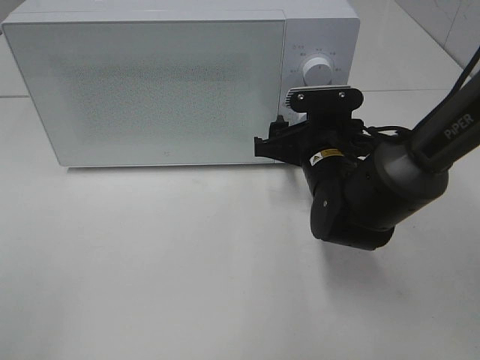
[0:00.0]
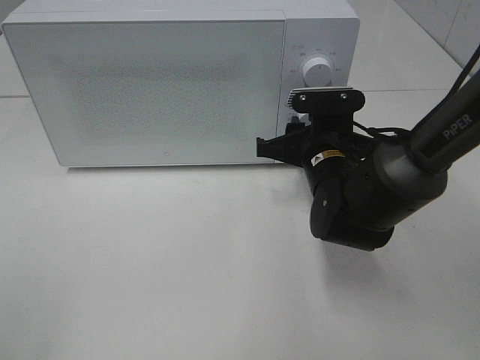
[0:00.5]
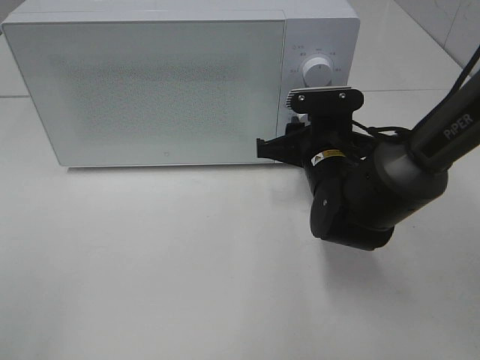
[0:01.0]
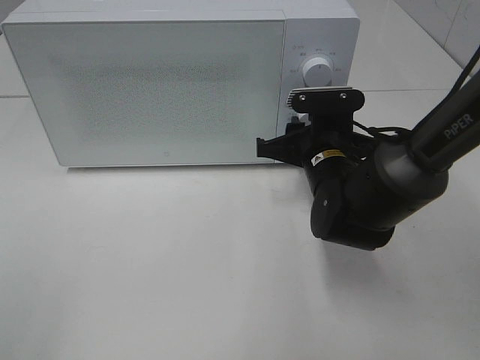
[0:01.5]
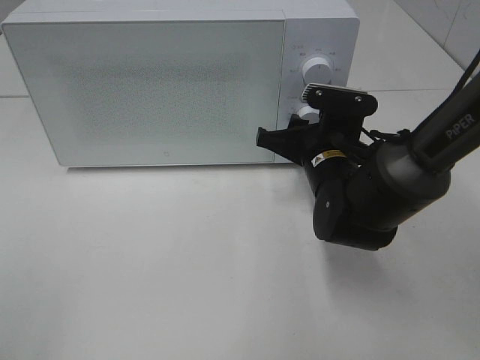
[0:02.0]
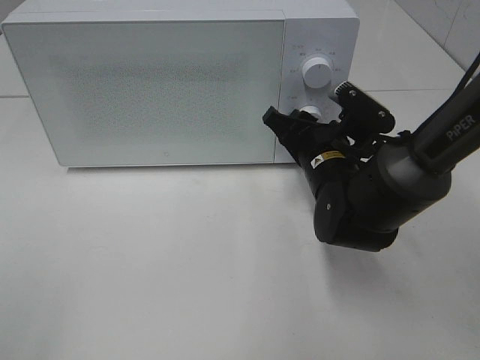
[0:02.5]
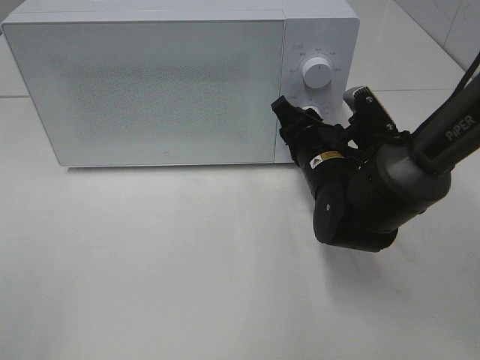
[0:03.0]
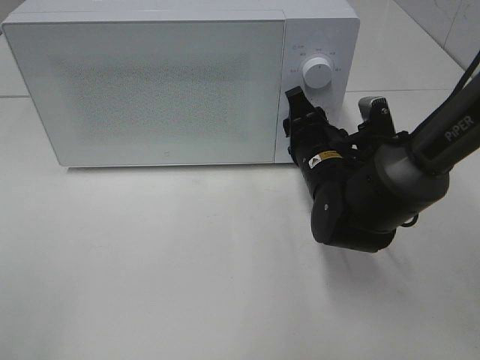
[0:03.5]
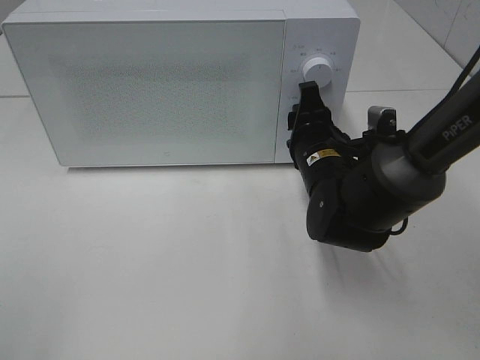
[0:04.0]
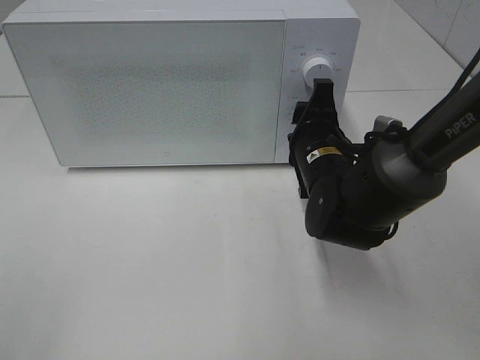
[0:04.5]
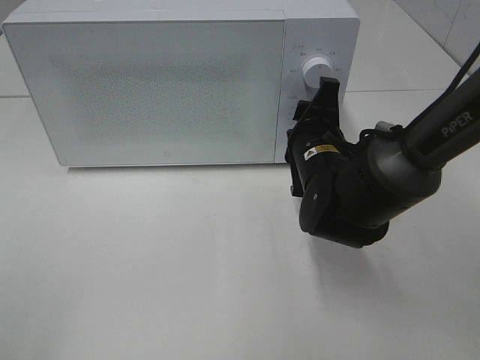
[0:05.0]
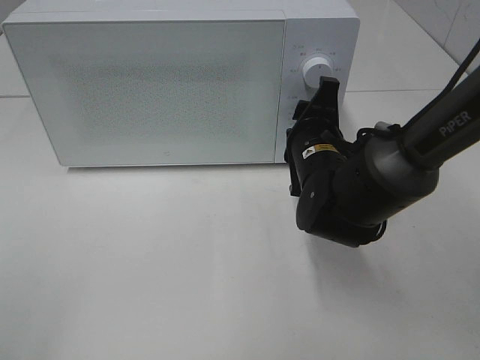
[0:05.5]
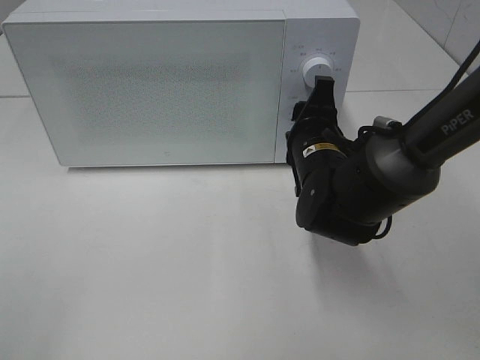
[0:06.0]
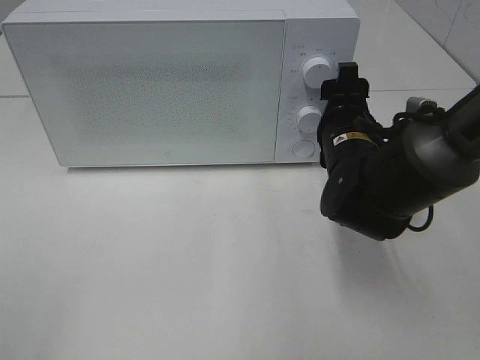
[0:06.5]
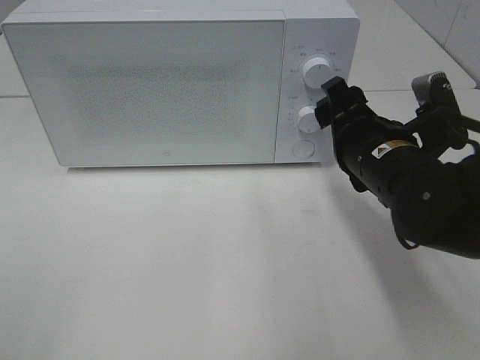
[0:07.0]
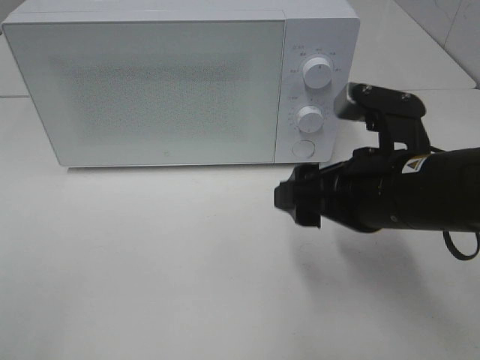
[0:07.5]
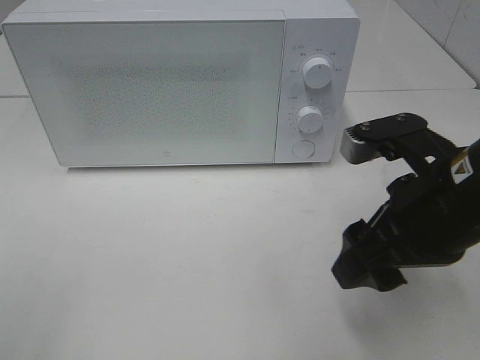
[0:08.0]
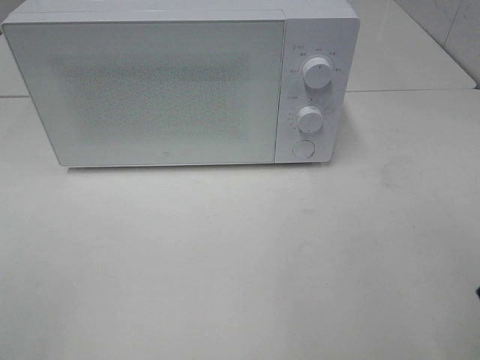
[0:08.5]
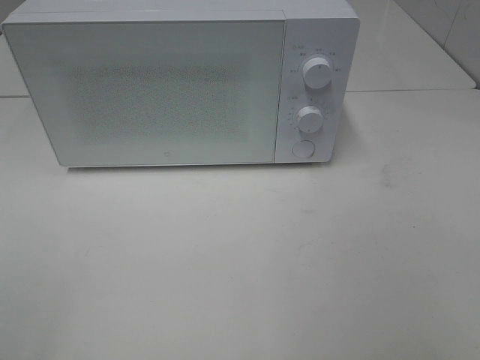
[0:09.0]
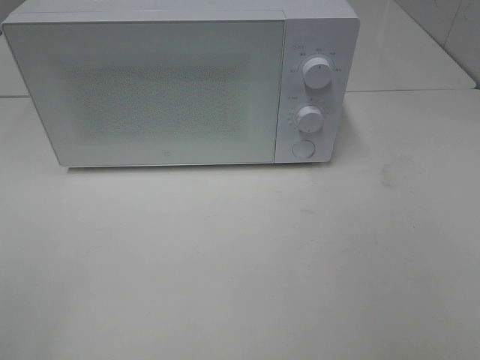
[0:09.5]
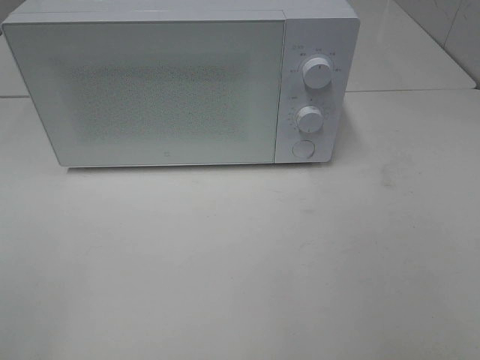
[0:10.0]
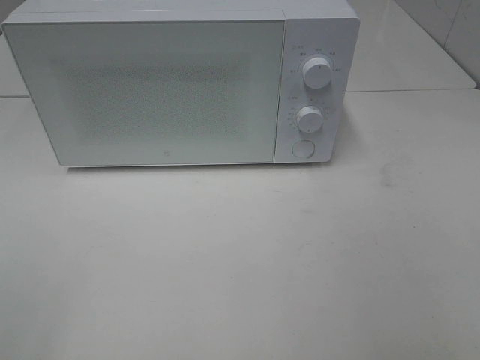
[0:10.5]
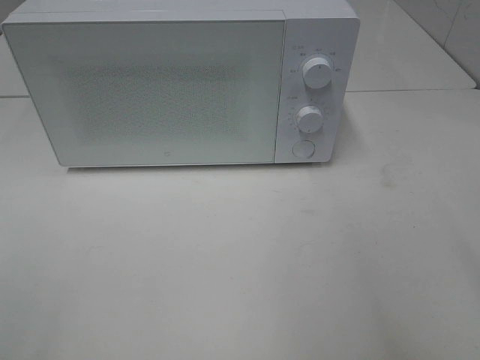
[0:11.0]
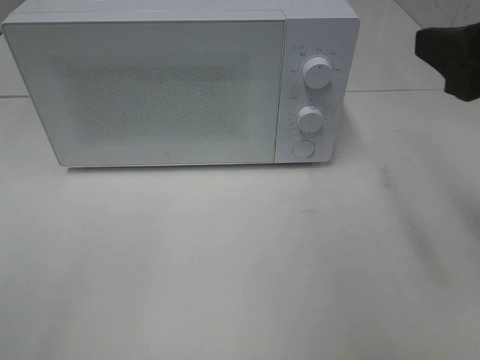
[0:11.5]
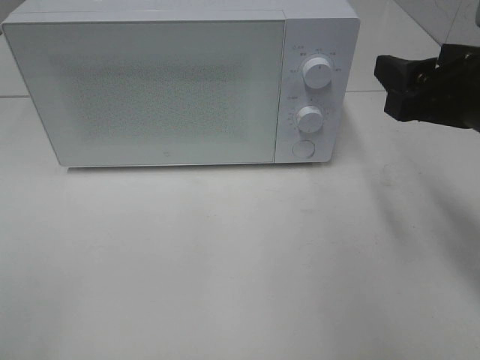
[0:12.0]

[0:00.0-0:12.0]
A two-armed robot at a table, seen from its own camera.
Task of the whole recording: Heat the burger.
Step, 0:00.0 to 0:06.0: Right hand: twist timer button.
0:00.0 to 0:02.0: The grippers make only small movements.
0:06.0 to 0:08.0: The right gripper heads backward and upward, covering about 15 cm.
0:08.0 to 0:10.0: The right gripper shifts about 25 cm backward, to the right and upward.
0:10.0 to 0:12.0: The right gripper travels forward by roughly 20 cm.

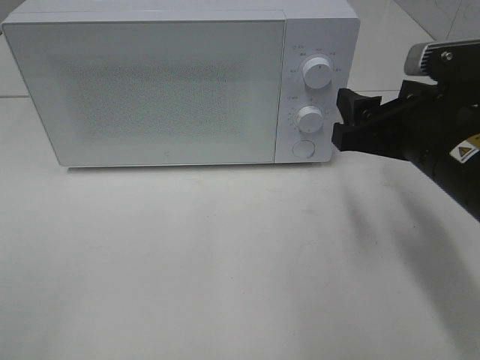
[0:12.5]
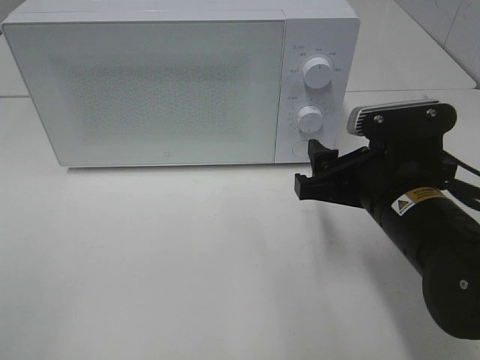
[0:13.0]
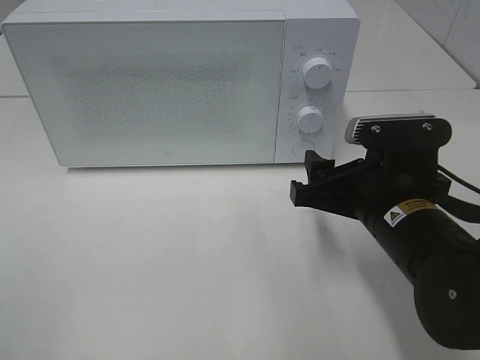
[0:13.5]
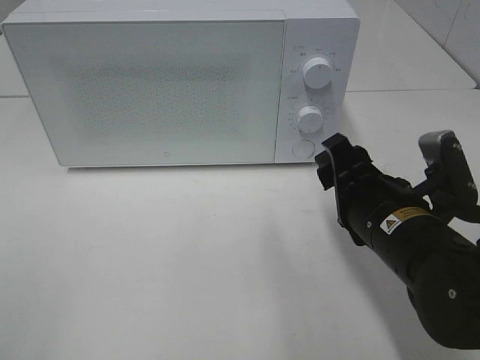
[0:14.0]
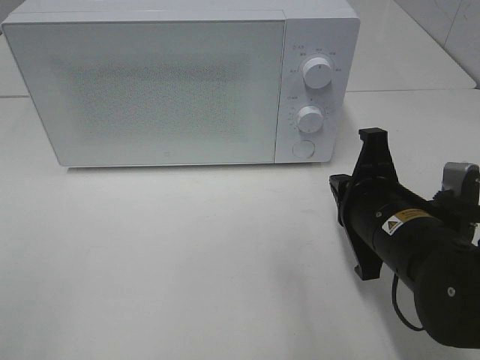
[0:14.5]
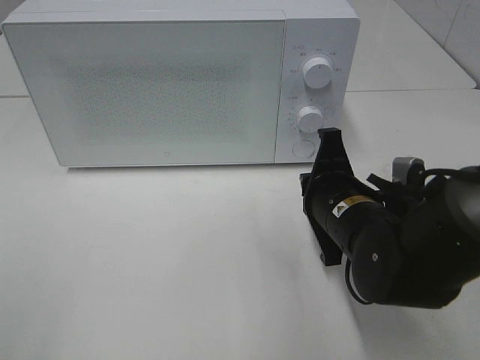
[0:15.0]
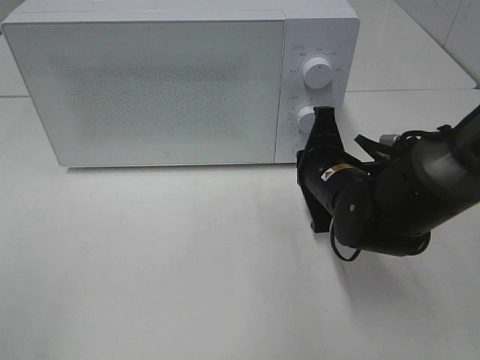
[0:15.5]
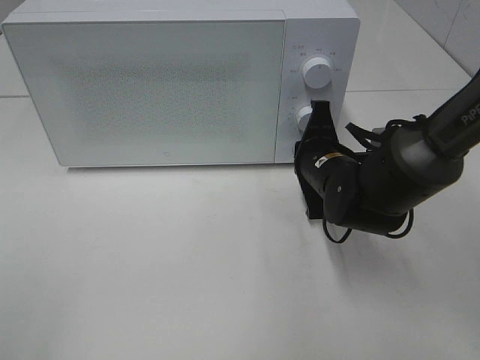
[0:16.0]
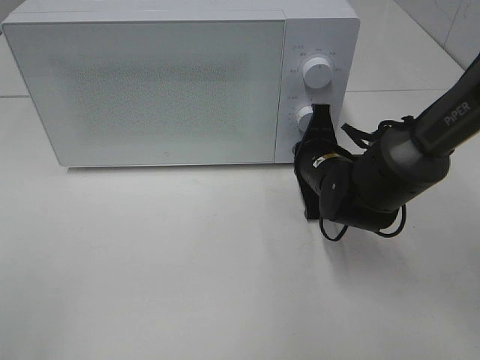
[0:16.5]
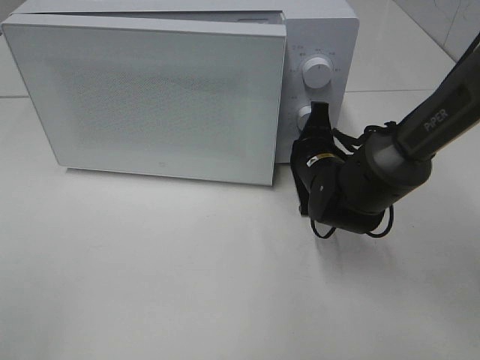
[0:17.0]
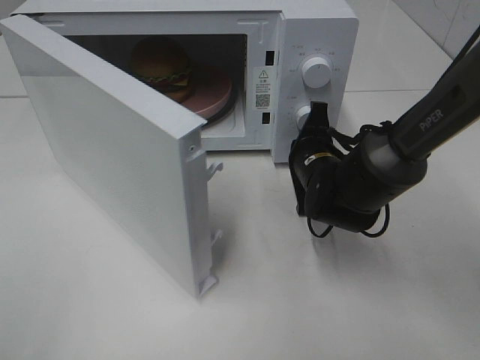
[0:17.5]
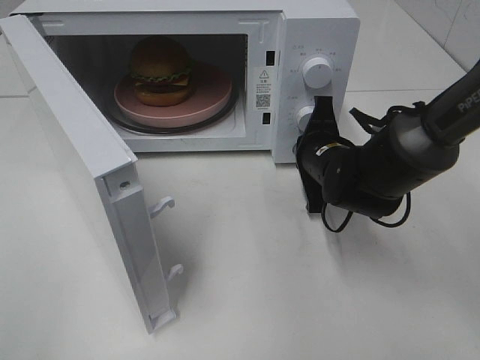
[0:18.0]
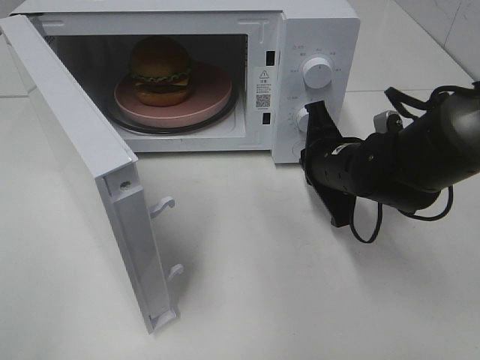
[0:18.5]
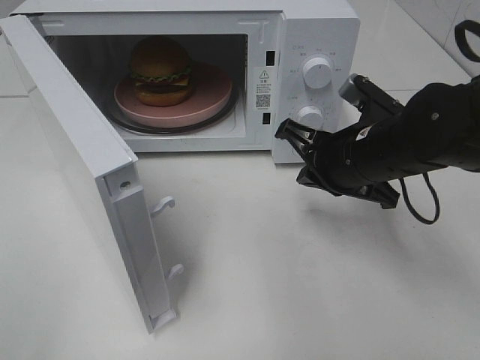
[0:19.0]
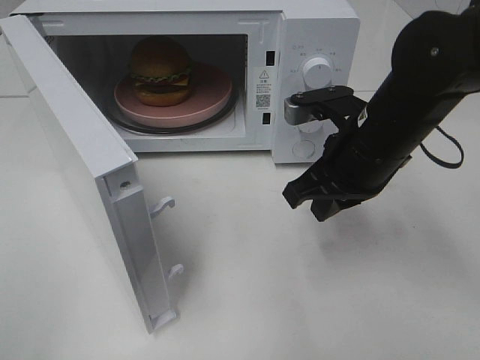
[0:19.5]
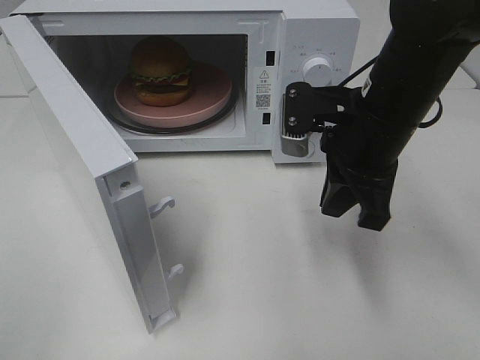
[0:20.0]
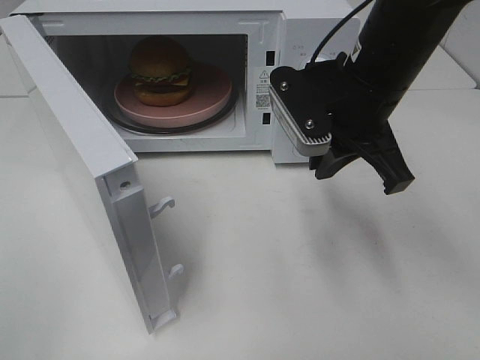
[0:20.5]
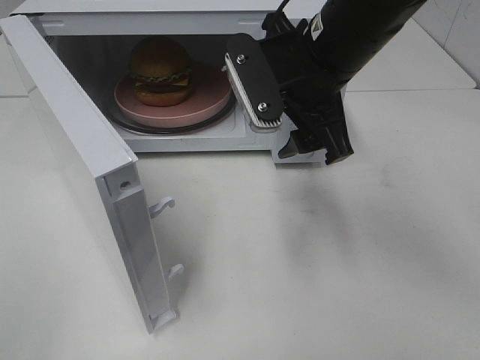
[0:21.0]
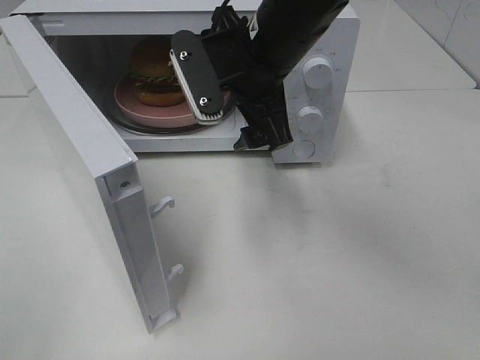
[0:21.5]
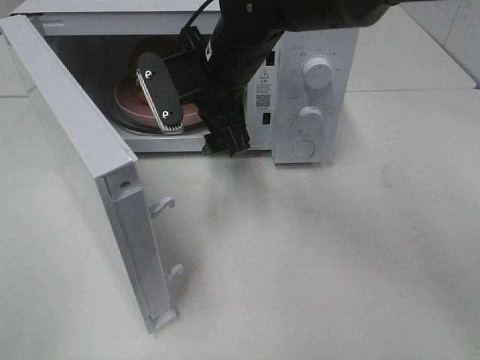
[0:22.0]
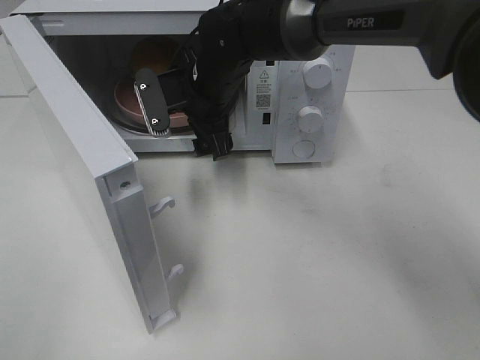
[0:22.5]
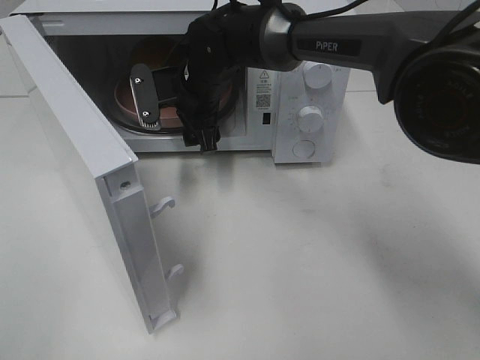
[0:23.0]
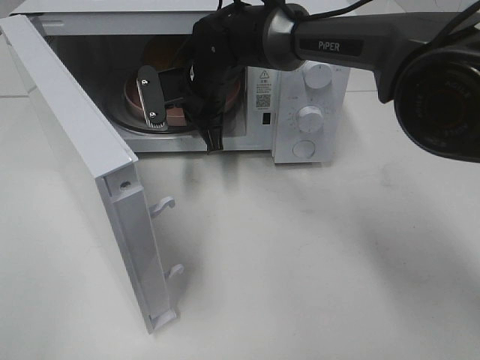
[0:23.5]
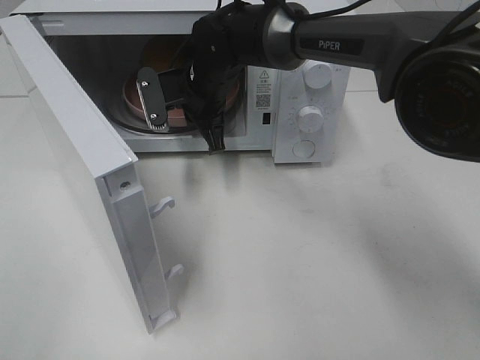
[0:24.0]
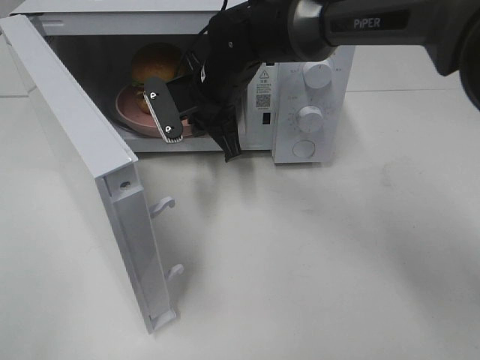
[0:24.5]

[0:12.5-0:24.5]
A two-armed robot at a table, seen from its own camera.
Task of the whole recording: Heat the burger.
Step, 0:12.5 to 0:18.0: Right hand: press the switch.
Step, 0:18.5 to 0:23.5: Right hand: grab the plate with the hamburger.
0:12.5 to 0:14.5: The right gripper is displaced downward by roughly 5 cm, and closes up.
0:14.5 to 0:16.5: The right gripper goes about 15 cm forward.
0:18.5 to 0:20.5: The right gripper travels upward by approximately 15 cm.
0:20.5 to 0:22.5: The right gripper travels to the left, forward and downward by approximately 20 cm, and opens up.
0:22.5 to 0:24.5: The right gripper closes.

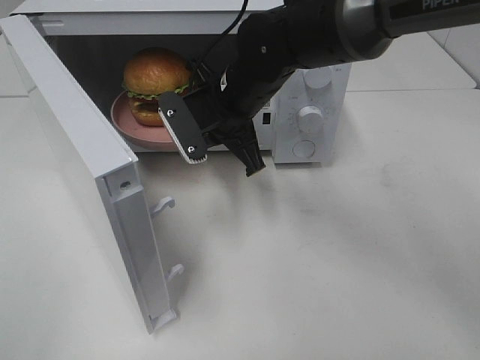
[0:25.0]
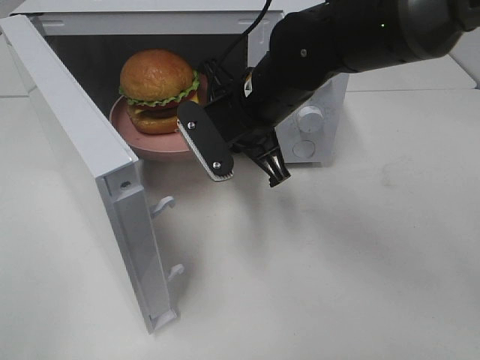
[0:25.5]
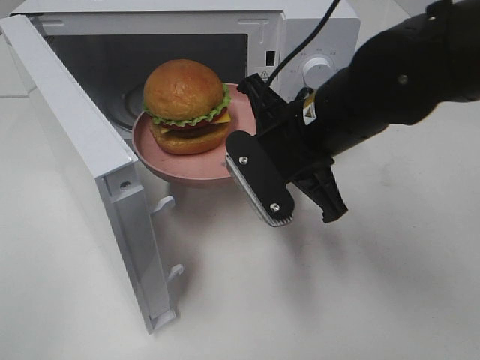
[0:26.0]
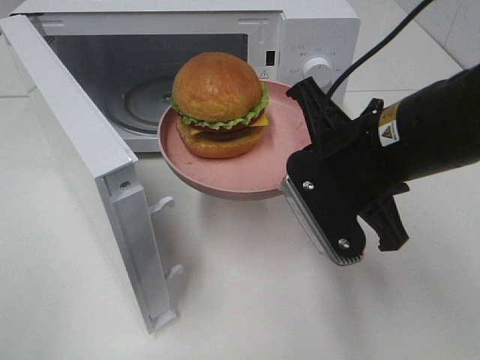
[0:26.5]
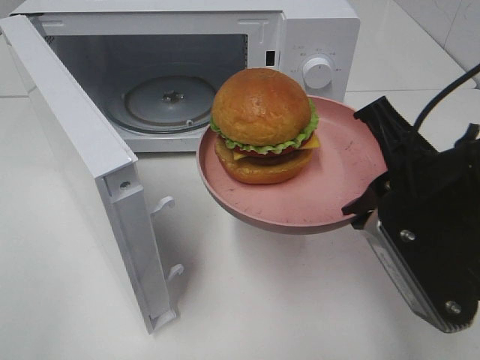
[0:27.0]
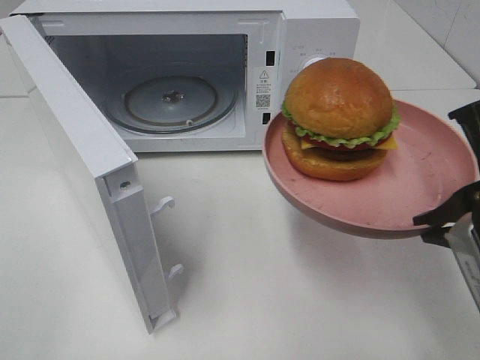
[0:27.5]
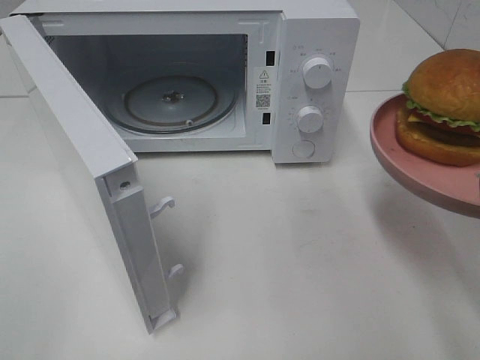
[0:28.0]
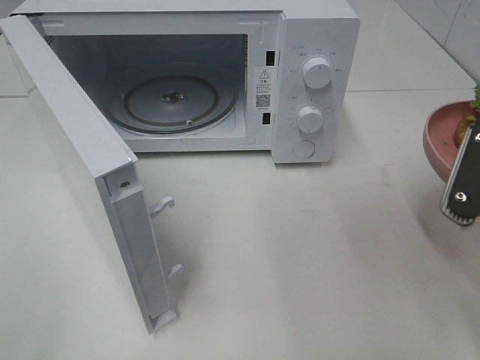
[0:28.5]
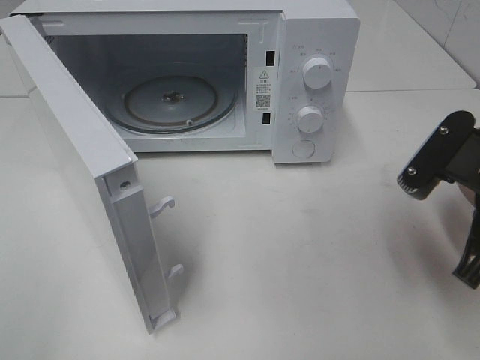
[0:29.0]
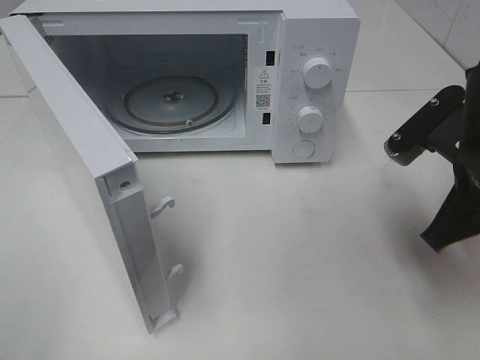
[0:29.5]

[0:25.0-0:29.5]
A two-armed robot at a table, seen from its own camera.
Task of the whole recording: Heat the burger.
0:25.0 to 0:27.0: The right gripper heads backward and to the right, covering about 25 cm.
0:27.0 to 0:29.5: The right gripper changes place by some 5 cm.
